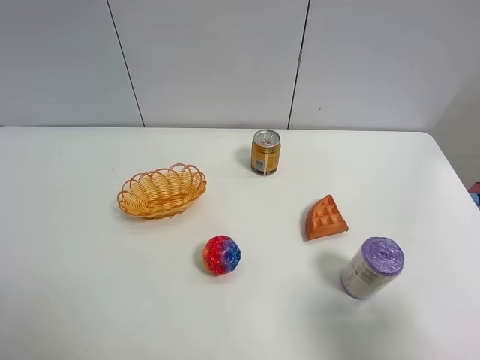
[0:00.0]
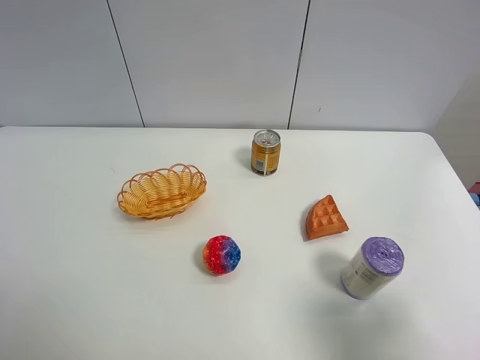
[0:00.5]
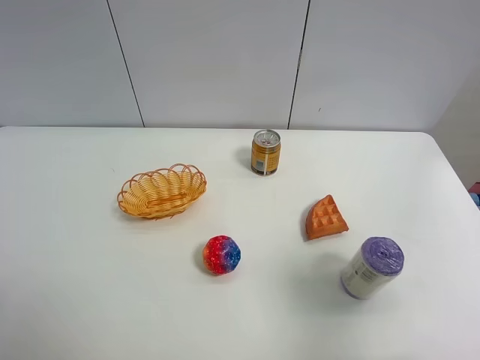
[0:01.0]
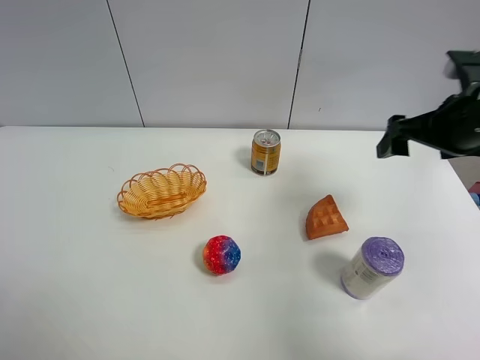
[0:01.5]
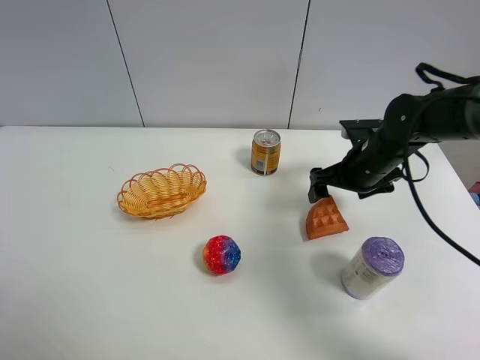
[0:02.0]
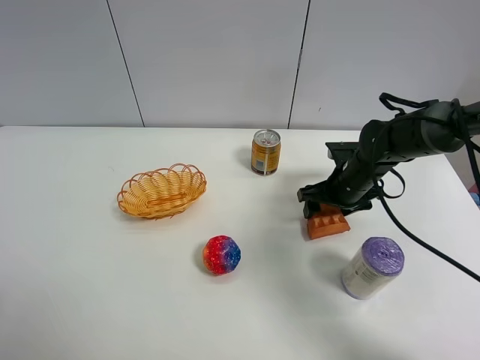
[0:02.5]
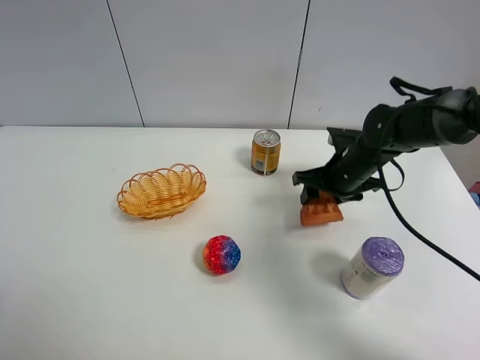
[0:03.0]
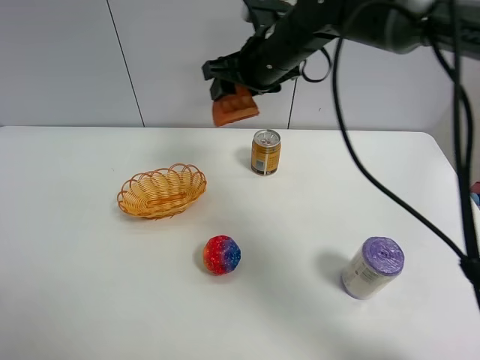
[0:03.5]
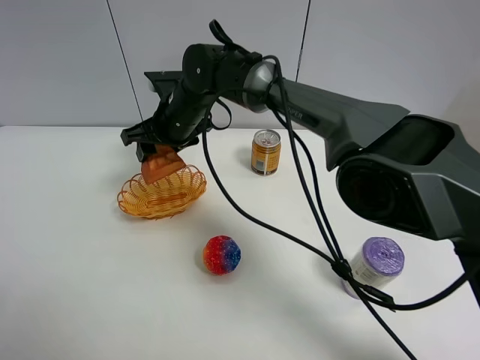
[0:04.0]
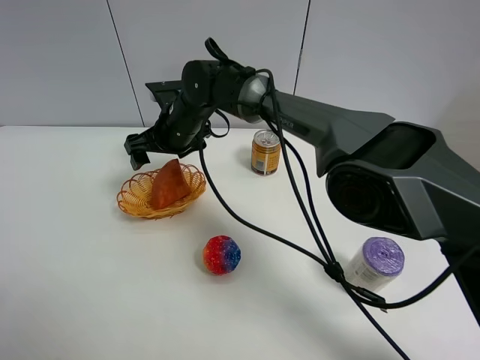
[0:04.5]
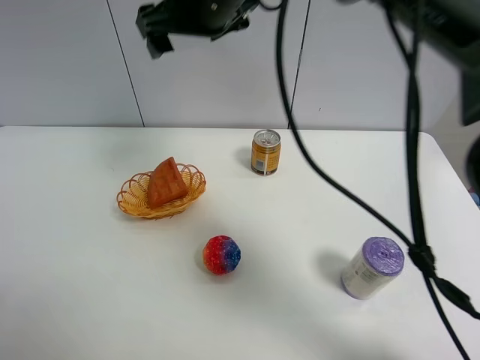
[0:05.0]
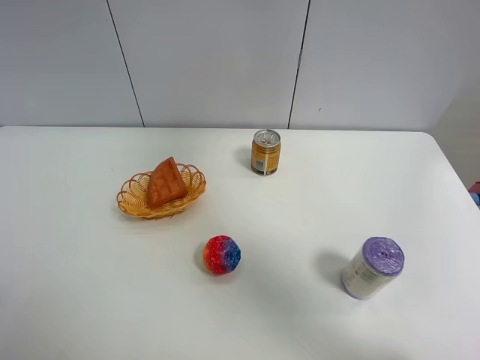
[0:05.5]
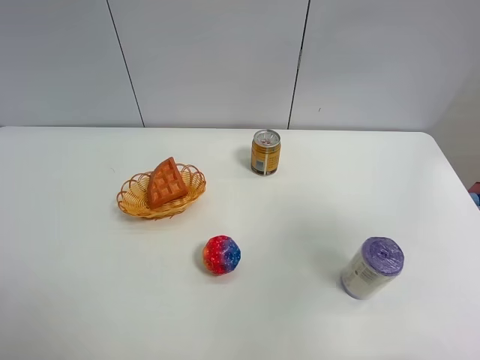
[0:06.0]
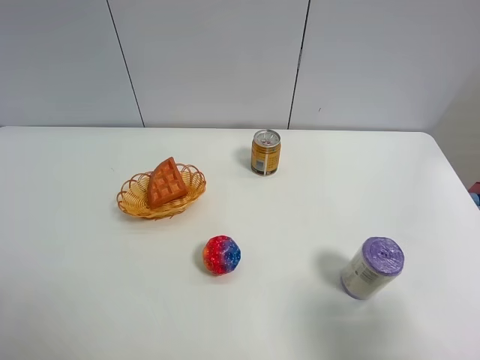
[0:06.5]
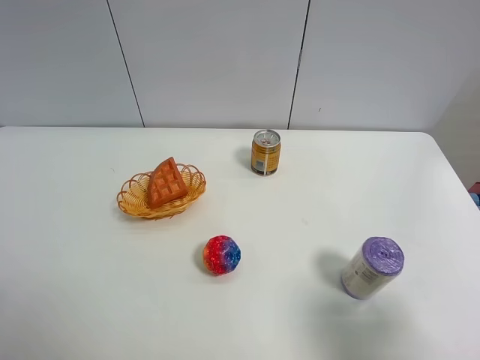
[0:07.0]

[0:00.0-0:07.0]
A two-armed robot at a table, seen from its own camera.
Task of the whole recording: Put the bakery in the basket.
Step, 0:00.0 to 0:02.5: Grasp the bread with right gripper.
Step, 0:03.0 to 0:04.5: Place the bread in the basket with right gripper.
0:00.0 to 0:02.0: The right gripper travels forward by about 35 cm.
0:02.0 to 0:03.5: The right gripper goes roughly 20 cm to the left and upward, and closes up.
0:03.5 to 0:05.0: The right gripper travels upward and to the left by approximately 10 cm, and opens its fingers.
0:05.0 to 0:07.0: The right gripper goes about 50 cm backward and to the right.
